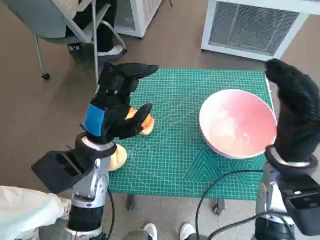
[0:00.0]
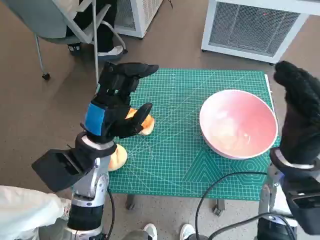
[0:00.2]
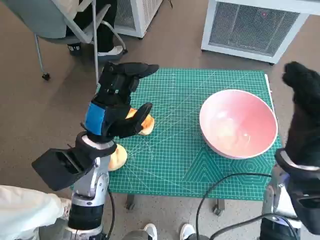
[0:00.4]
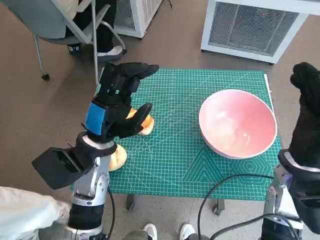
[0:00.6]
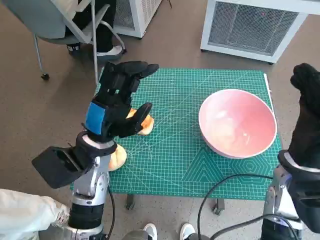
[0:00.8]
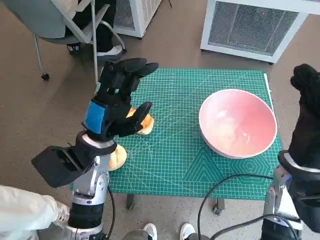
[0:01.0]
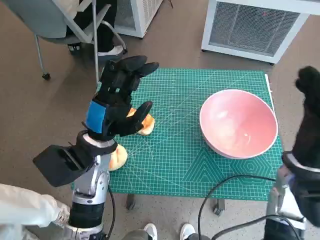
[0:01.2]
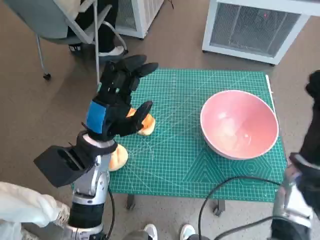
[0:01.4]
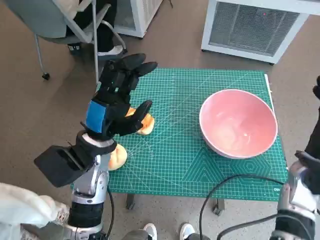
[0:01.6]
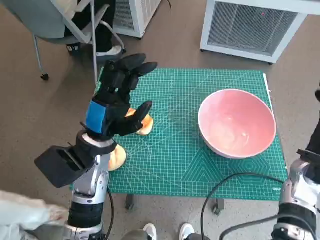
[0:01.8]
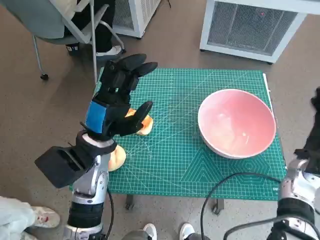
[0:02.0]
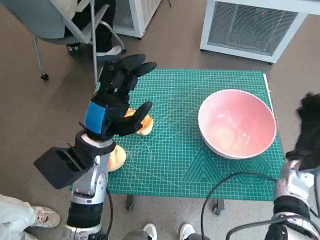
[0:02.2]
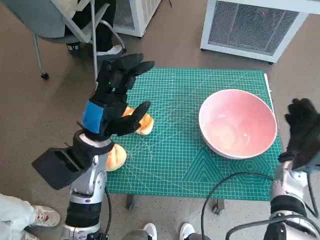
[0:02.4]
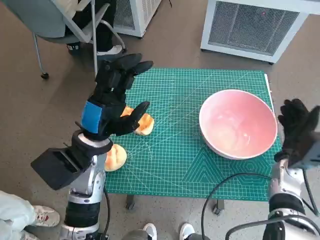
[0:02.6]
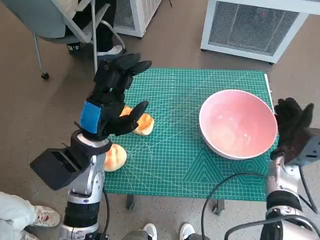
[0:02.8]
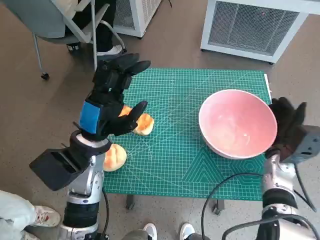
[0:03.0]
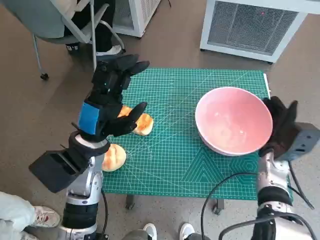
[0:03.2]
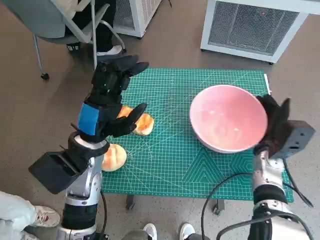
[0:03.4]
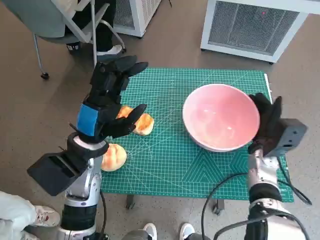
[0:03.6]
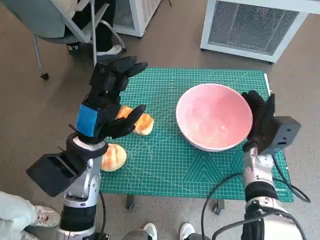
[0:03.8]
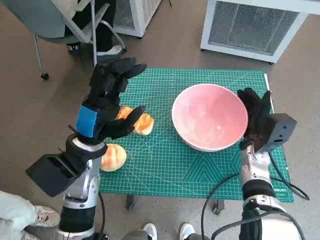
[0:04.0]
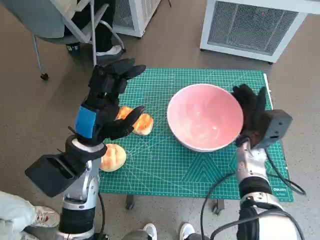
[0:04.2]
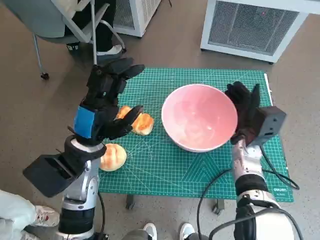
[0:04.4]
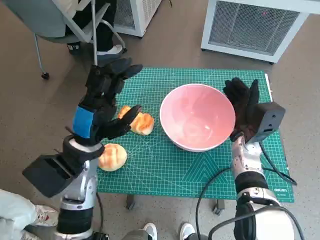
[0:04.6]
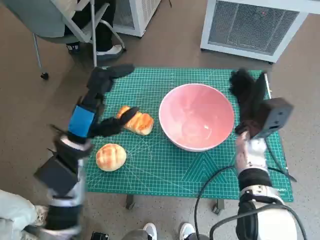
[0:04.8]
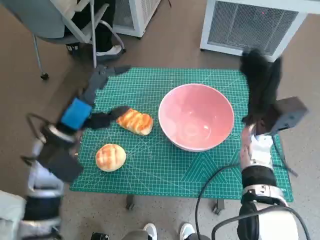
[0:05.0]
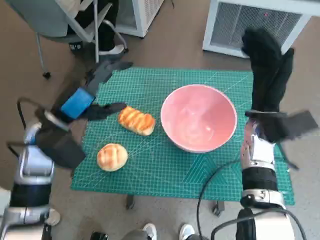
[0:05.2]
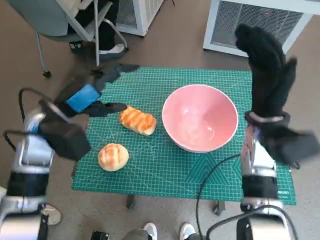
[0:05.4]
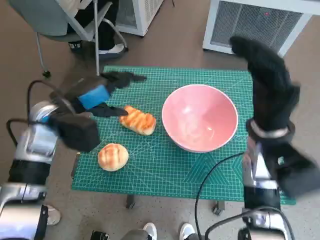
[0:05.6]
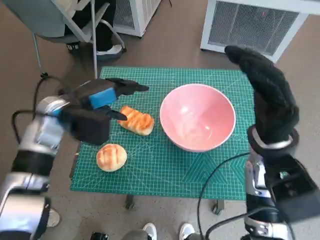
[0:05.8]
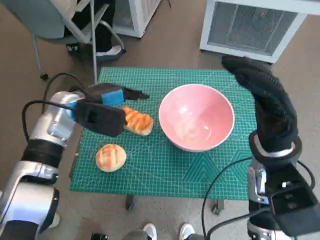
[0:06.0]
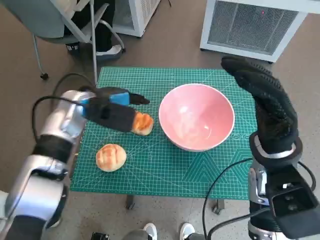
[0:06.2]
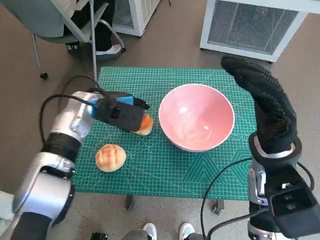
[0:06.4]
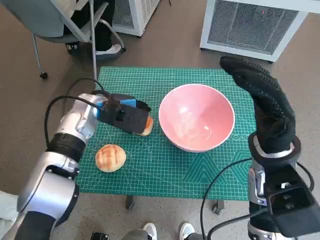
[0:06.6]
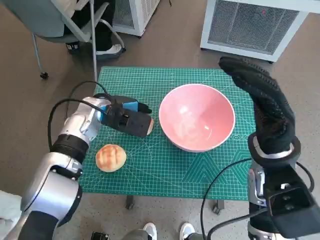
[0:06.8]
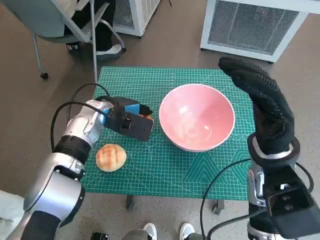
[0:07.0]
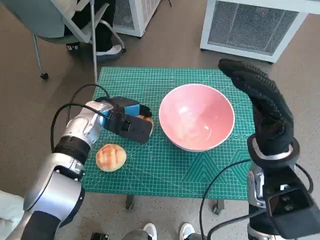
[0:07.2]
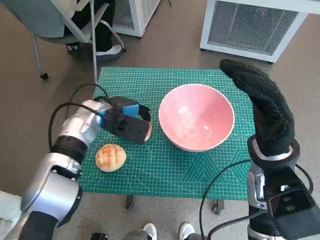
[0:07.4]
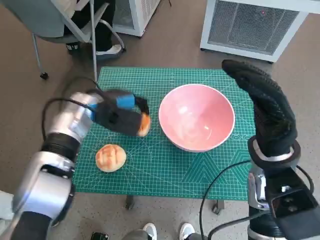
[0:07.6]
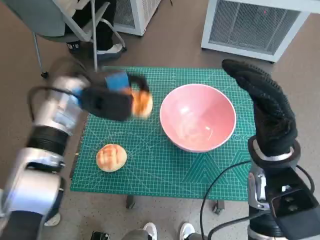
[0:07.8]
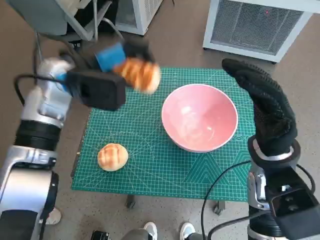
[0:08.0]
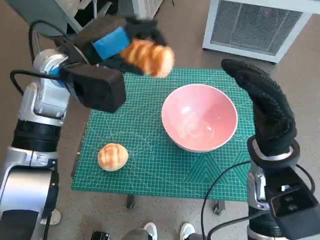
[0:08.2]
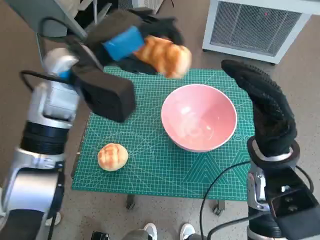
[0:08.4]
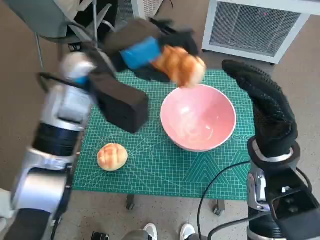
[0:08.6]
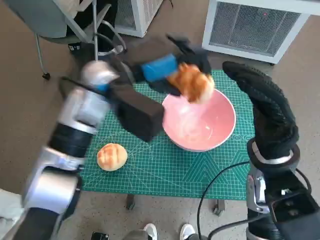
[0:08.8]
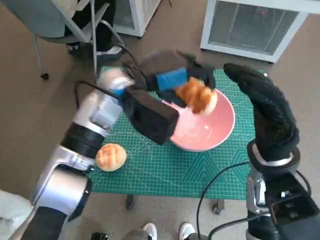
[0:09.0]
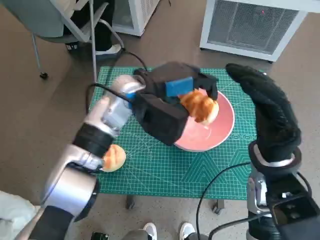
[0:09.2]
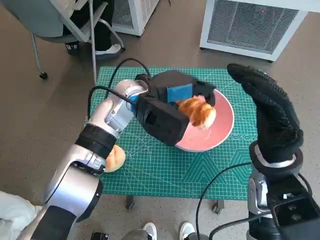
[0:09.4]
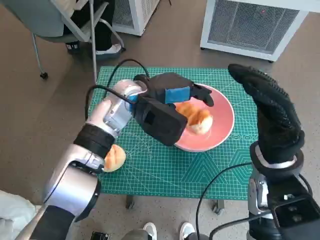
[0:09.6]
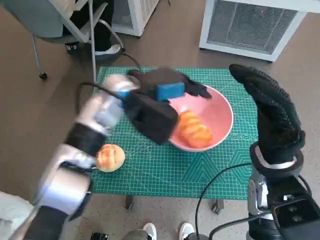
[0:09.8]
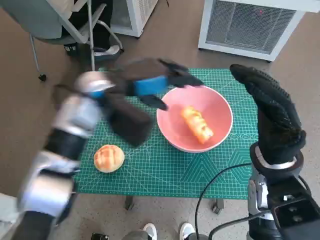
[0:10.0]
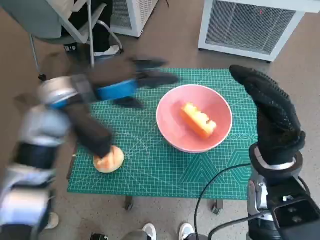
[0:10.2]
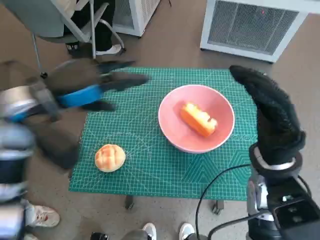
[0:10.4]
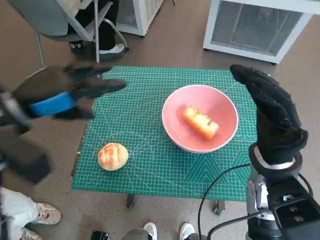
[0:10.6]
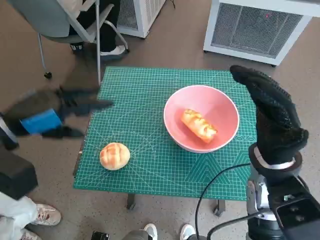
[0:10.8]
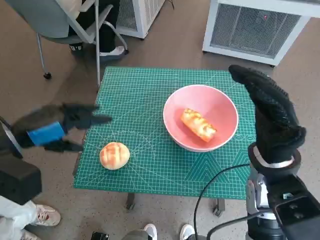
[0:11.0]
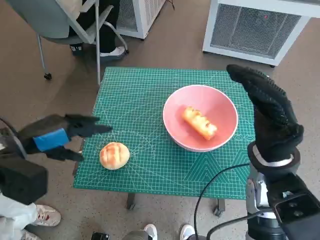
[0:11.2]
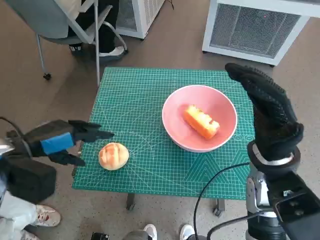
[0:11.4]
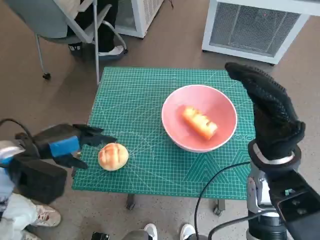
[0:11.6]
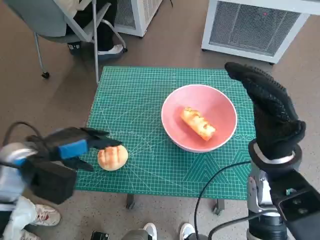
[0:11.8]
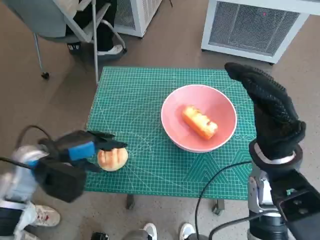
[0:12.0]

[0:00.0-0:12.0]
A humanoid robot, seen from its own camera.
Task of the whole recording: Push the bowl to the center of the table and put the bread into the bowl.
Step, 0:00.0 to 0:04.8: Move the pink bowl to the center of table with right hand.
Step, 0:05.0 to 0:07.4: Grasp the long bread with left hand.
Step, 0:07.6 to 0:10.2: Place the long bread in pink bowl with left hand.
0:01.6 to 0:03.0: The right hand moves downward, some 5 cm.
0:03.0 to 0:04.4: The right hand heads to the left, covering approximately 10 cm.
0:04.4 to 0:06.0: The right hand goes roughly 15 cm upward and backward; the left hand shifts some 10 cm forward.
0:07.6 to 0:09.0: The left hand heads upward and to the right, covering roughly 10 cm.
0:09.0 to 0:10.4: The left hand travels to the left by approximately 15 cm.
0:10.4 to 0:12.0: The left hand moves downward, some 10 cm.

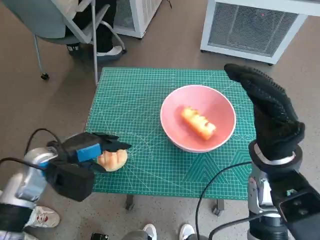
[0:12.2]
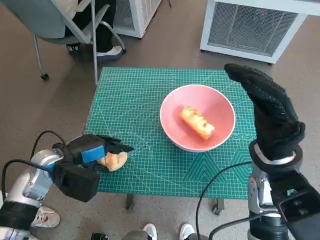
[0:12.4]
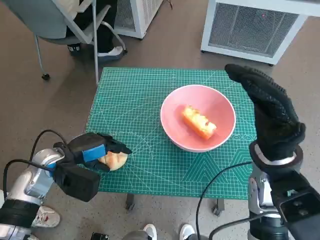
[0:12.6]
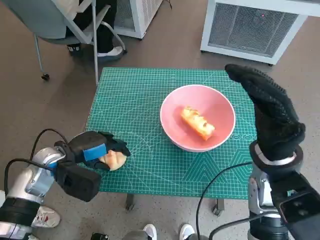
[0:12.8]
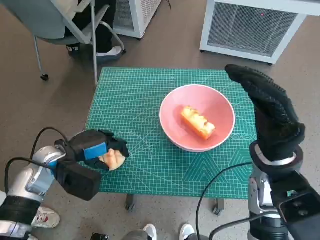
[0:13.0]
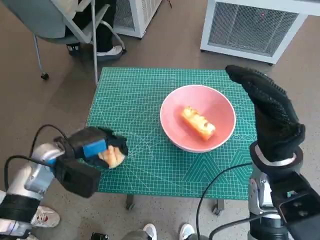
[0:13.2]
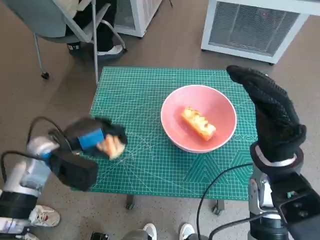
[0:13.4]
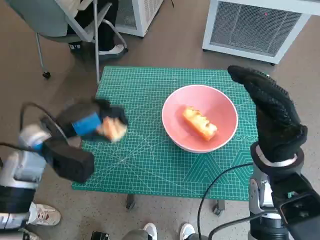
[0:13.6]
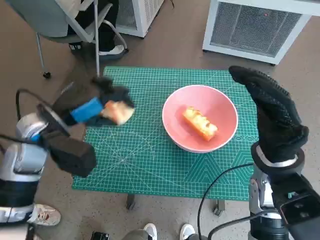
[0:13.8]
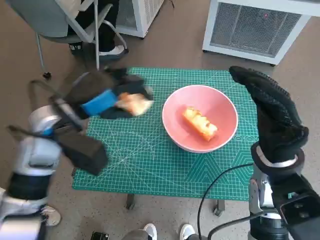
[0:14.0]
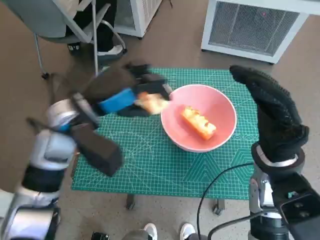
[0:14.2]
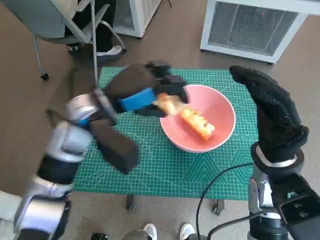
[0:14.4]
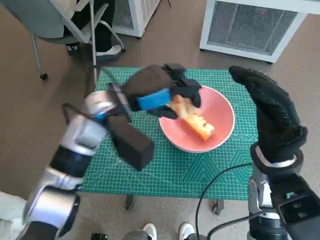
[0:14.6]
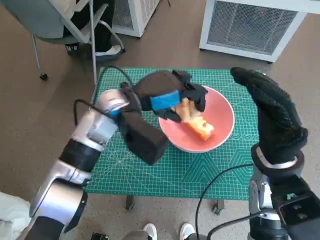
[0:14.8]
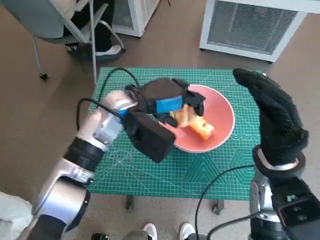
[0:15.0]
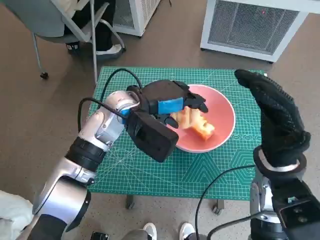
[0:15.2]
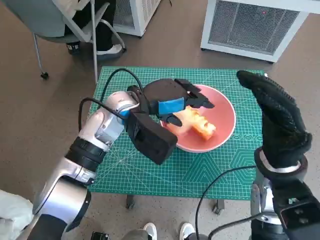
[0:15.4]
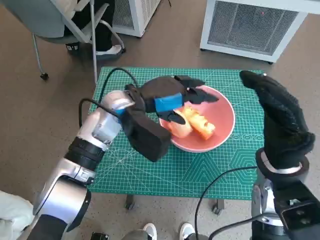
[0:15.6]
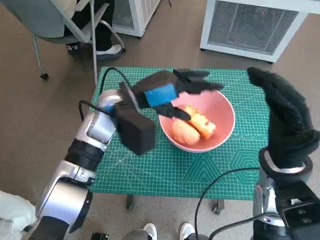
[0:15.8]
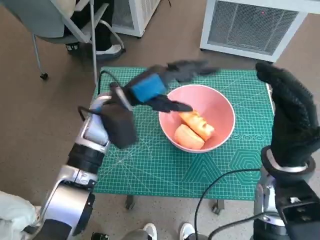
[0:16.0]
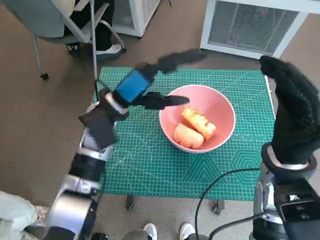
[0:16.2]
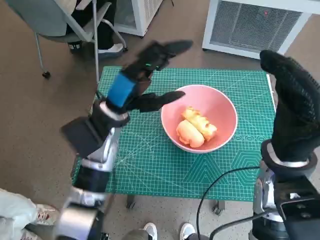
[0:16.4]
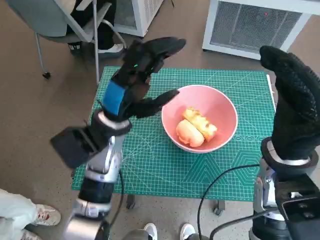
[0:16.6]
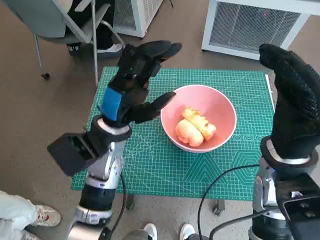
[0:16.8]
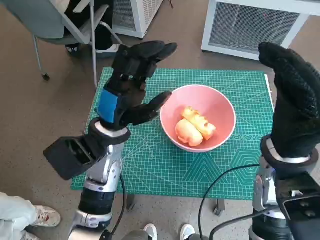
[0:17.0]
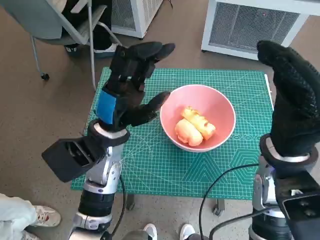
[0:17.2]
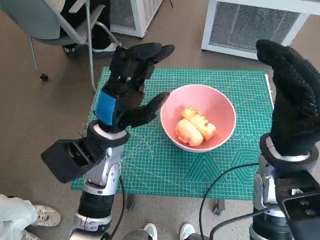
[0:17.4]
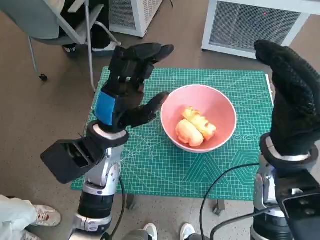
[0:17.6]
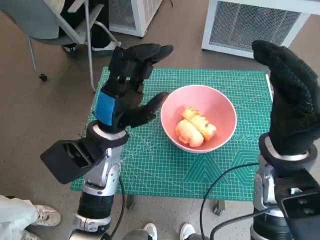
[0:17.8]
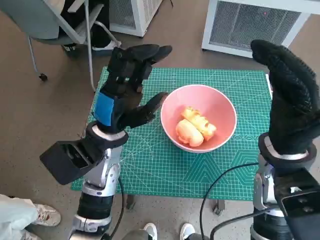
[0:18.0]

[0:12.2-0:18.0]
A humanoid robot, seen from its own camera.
Task of the whole recording: Push the bowl to the center of the table and put the bread into the bowl.
Step, 0:13.0 to 0:16.0: Place the round bread in pink bowl with left hand.
0:12.2 to 0:13.6: The hands move only a little.
0:13.6 to 0:15.0: The left hand shifts some 15 cm to the right and forward.
0:15.0 to 0:16.6: The left hand changes place by some 5 cm.
